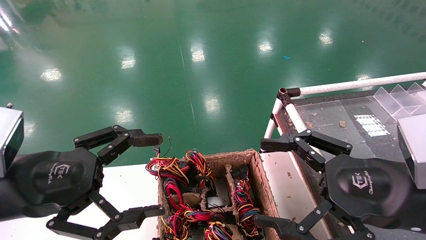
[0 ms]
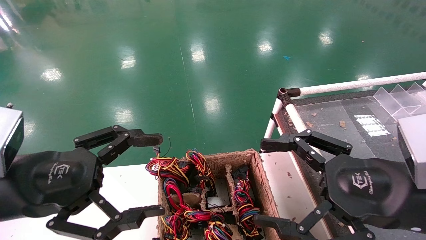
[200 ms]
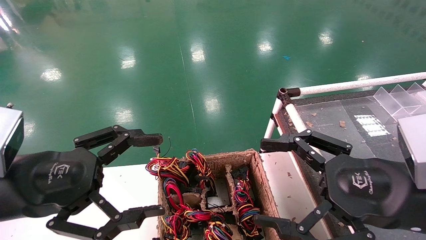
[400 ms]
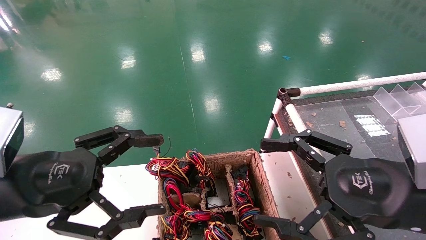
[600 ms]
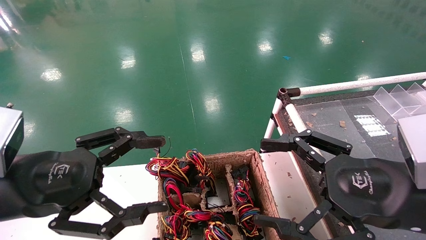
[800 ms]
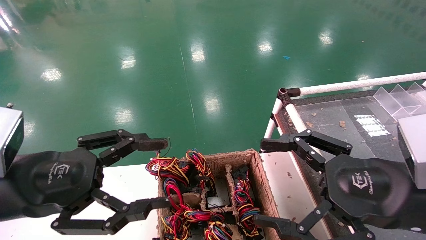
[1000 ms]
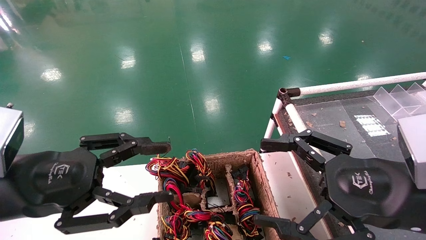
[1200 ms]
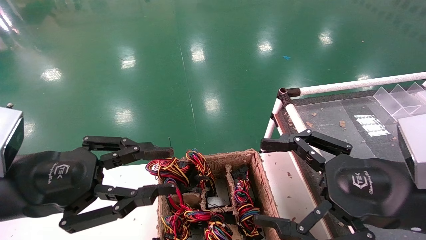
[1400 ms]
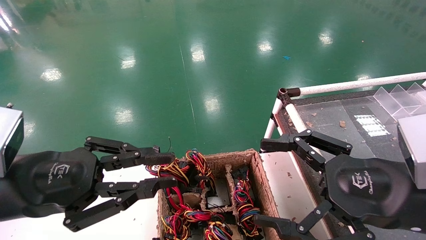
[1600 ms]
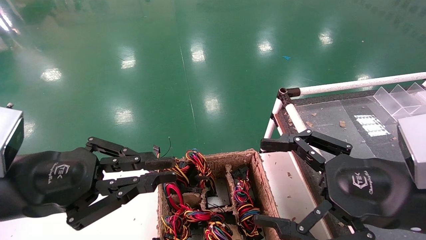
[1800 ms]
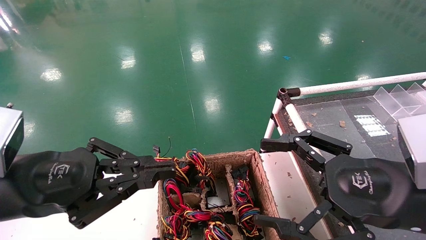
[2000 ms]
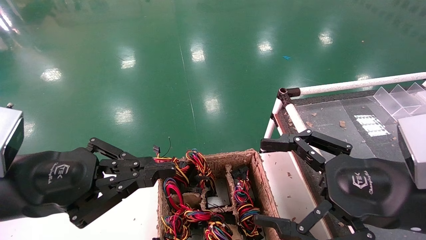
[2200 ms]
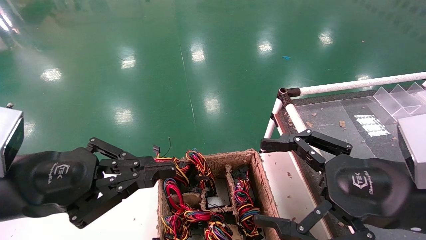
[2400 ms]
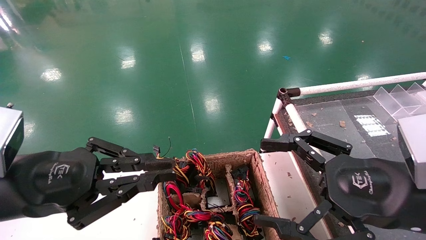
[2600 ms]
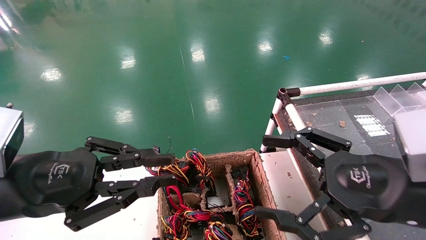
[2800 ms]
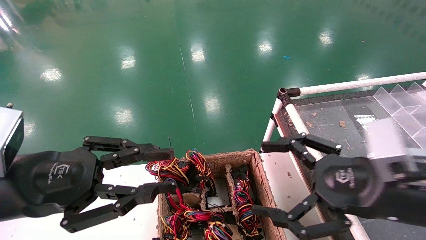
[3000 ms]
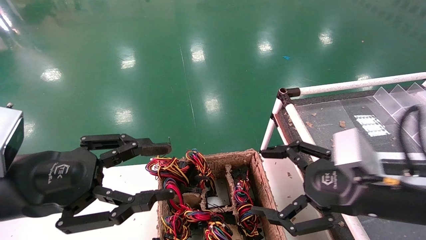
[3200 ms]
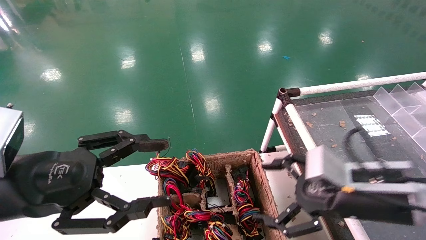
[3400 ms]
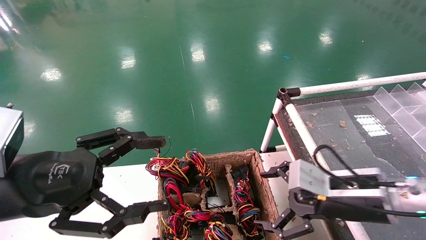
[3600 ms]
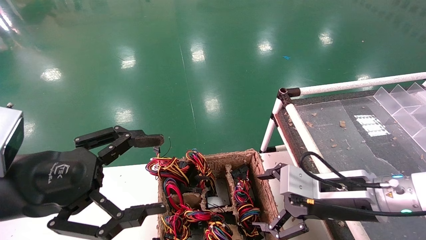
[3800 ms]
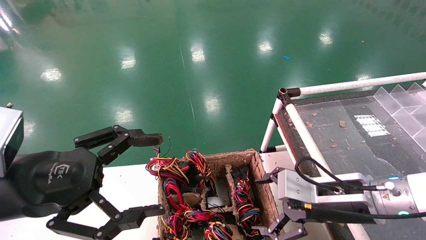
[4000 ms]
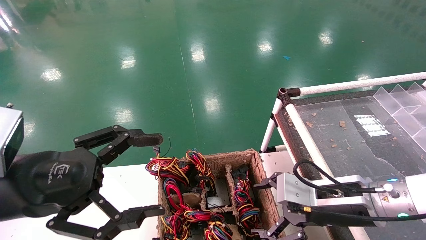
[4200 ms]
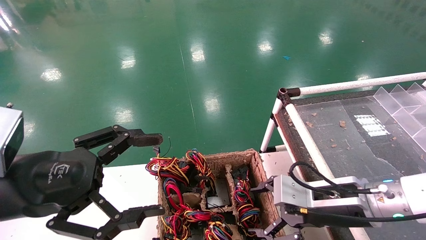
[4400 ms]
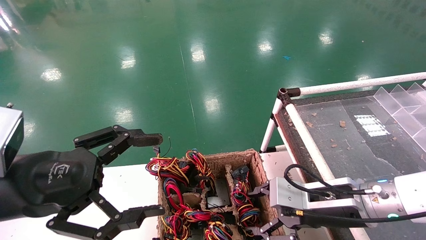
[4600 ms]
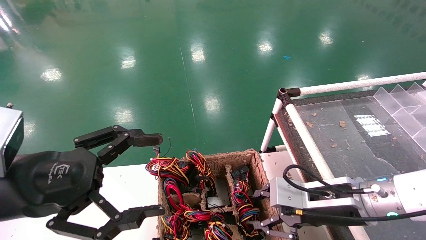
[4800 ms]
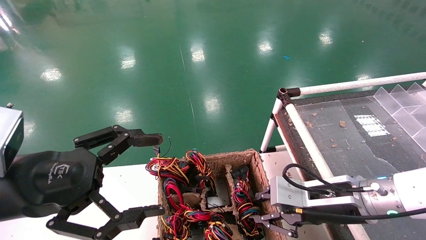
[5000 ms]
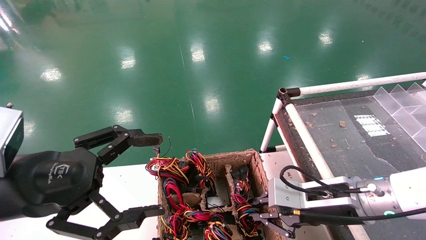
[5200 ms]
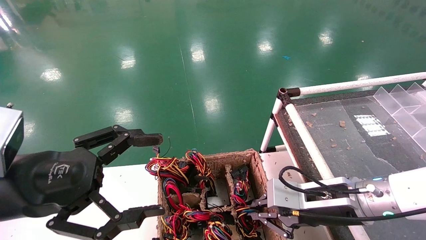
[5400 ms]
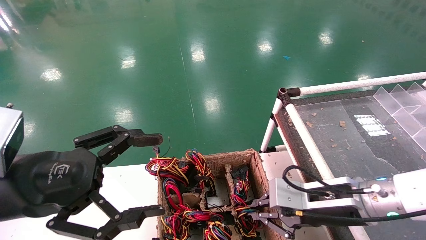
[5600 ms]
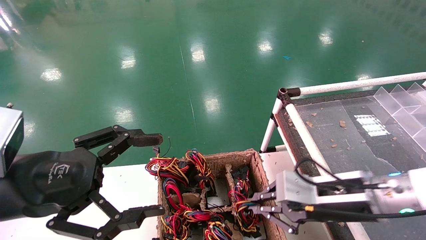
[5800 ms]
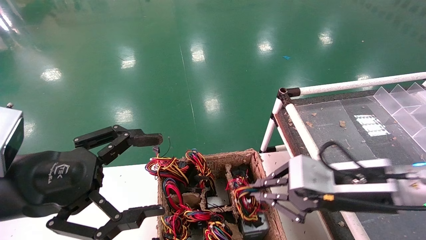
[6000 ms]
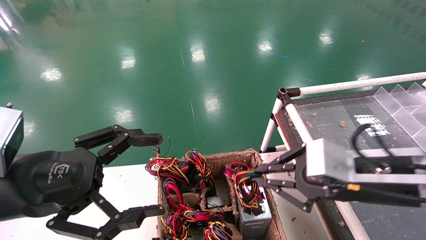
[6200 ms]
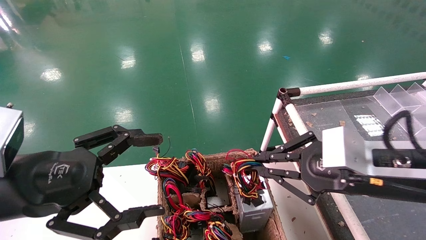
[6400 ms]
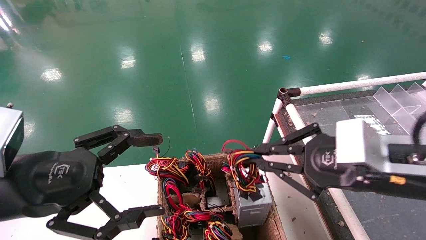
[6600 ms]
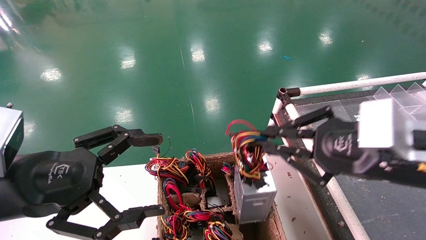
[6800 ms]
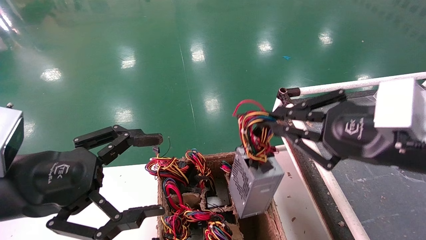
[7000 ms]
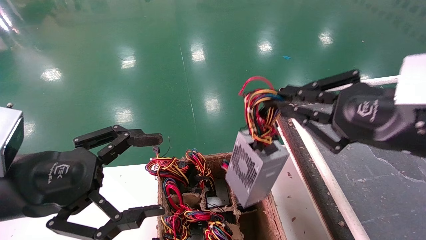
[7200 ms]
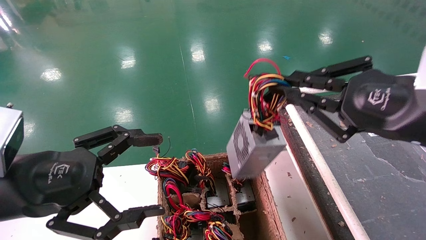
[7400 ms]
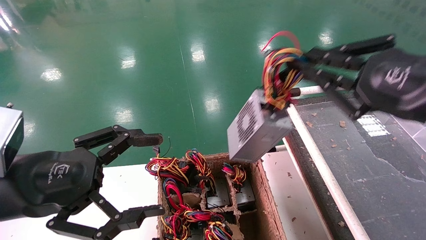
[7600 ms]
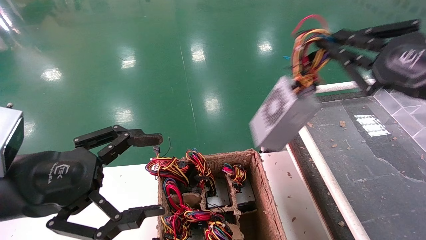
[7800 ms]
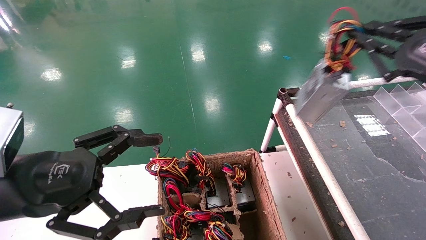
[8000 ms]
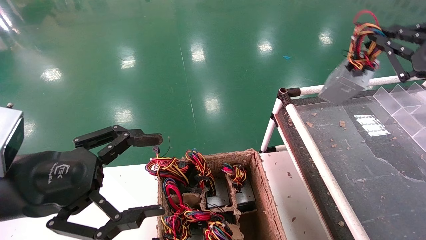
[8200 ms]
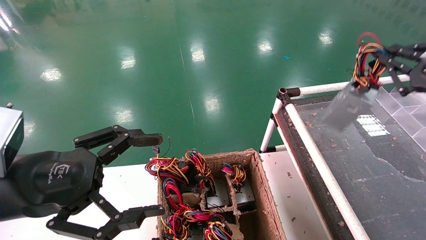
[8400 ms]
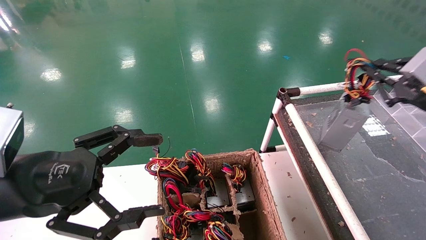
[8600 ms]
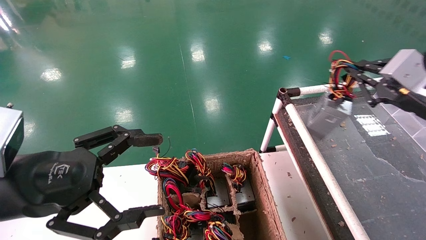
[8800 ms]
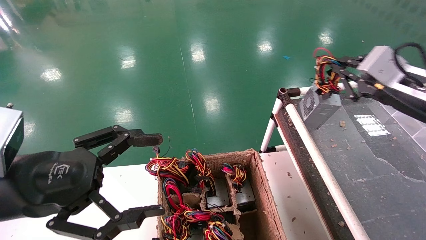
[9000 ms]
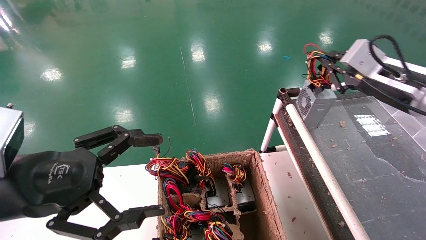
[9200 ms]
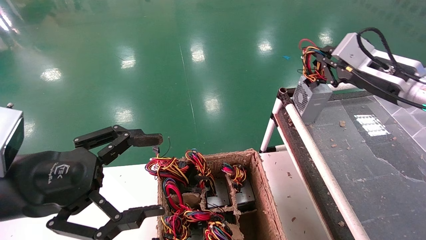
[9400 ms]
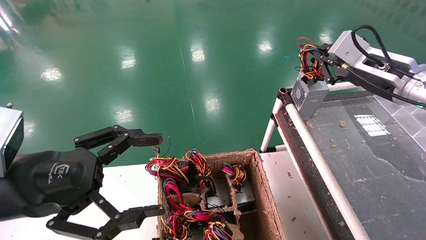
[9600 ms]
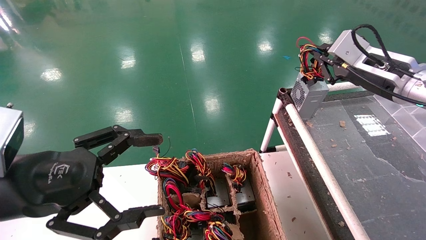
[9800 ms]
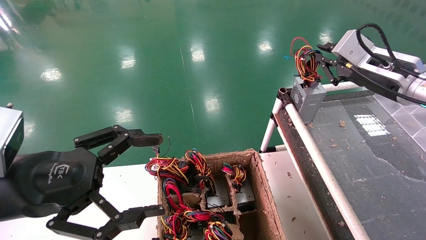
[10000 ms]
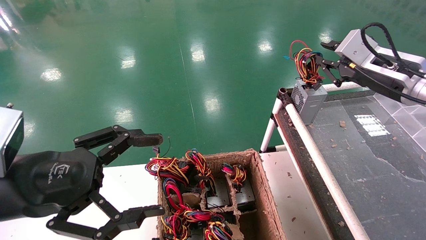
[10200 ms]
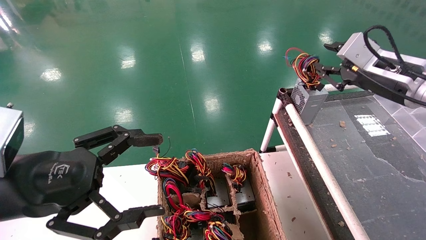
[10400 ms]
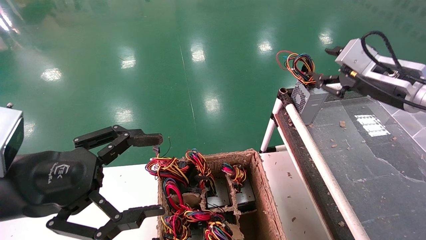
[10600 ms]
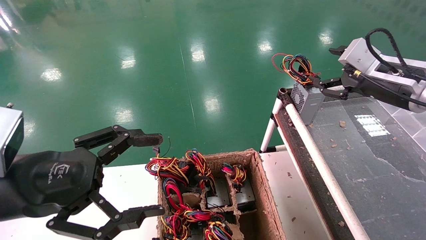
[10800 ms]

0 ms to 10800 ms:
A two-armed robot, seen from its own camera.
Step, 2800 ms to 5200 ms: Grab and lift the power supply from the large box.
Step, 5400 ms to 10800 ms: Place the power supply on the operating table.
0 ms to 1600 ms: The left gripper closes up.
1600 ms to 3000 ms: There are only small adjustments of the grippers.
3000 ms to 4600 ms: The right gripper shifts roughly 10 cm forward and downward, while the left gripper opens.
4600 ms to 6200 ms: The right gripper is displaced upward by some 5 cm, and closes its fingers.
6200 ms to 7800 ms: The right gripper is displaced upward and to the right by approximately 15 cm.
7800 ms to 9200 ms: The right gripper is displaced forward by some 10 cm.
9200 ms to 10800 ms: The right gripper opens up.

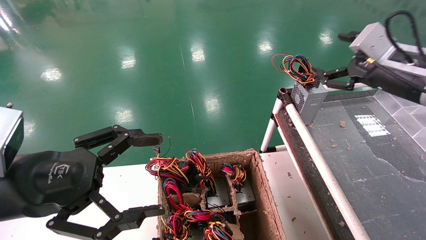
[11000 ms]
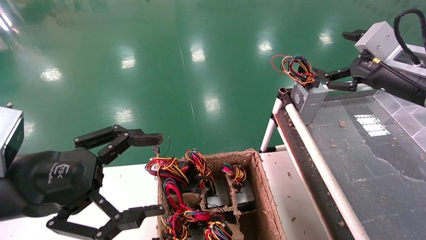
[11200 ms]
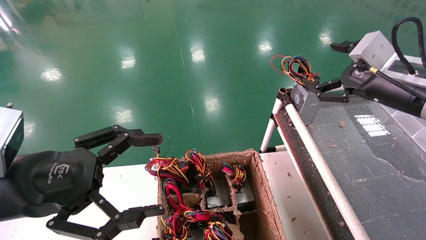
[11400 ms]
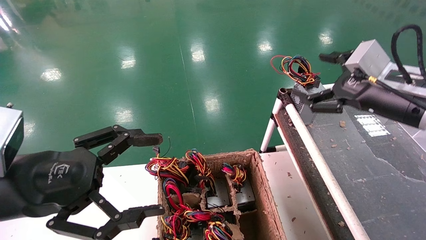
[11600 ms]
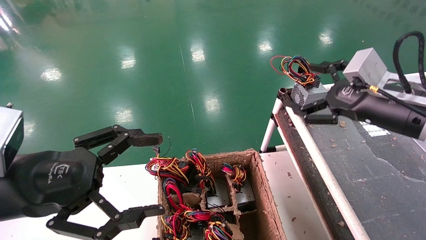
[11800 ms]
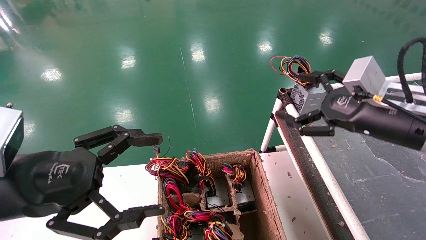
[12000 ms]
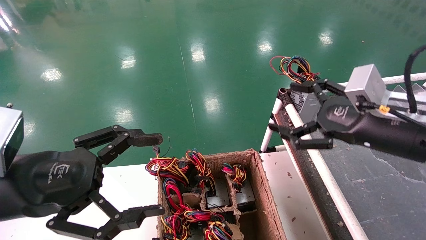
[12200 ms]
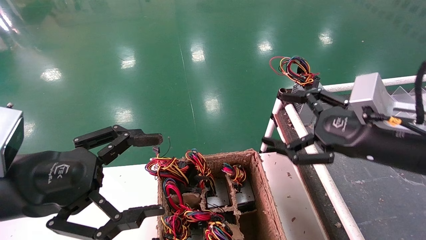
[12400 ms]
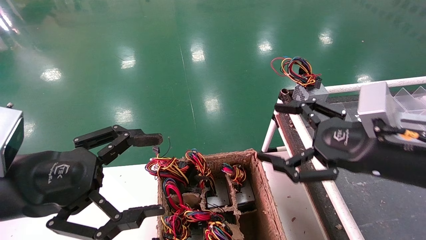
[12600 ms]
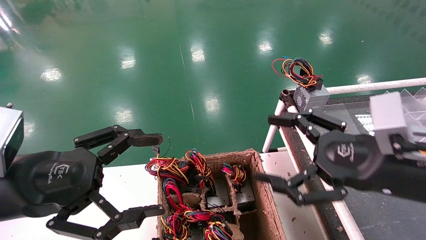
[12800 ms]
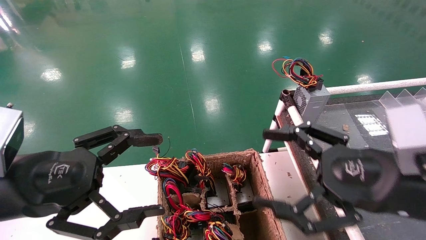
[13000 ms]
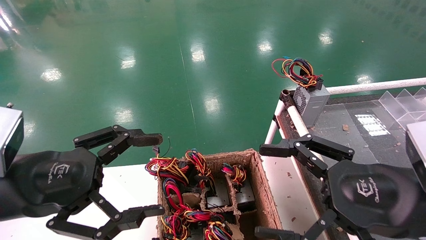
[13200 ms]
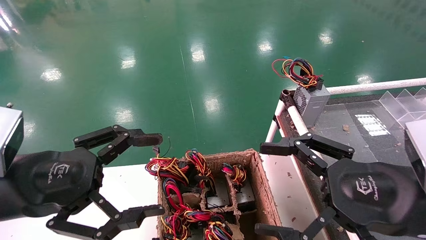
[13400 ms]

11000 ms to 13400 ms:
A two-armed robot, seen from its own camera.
11000 ms to 12200 ms: The right gripper heads backward, downward and to the left, covering approximately 10 cm.
12200 ms to 13400 ms: The right gripper goes about 10 cm backward.

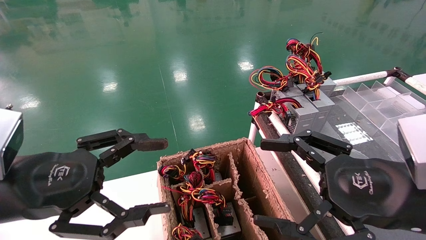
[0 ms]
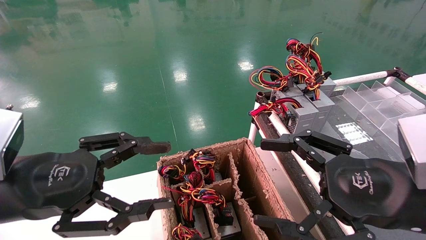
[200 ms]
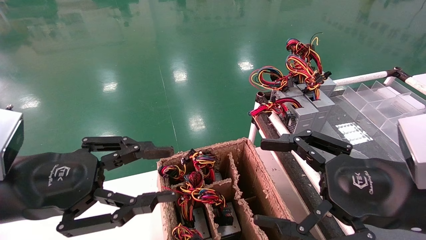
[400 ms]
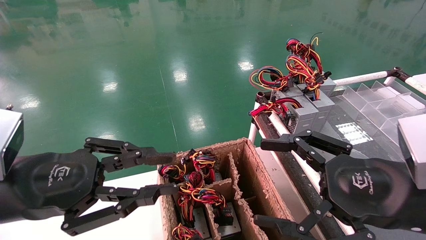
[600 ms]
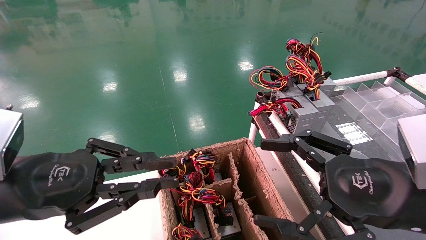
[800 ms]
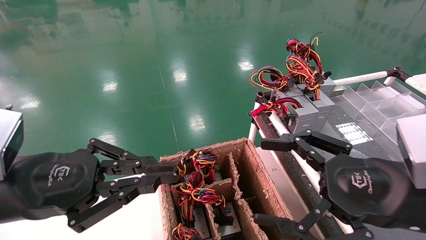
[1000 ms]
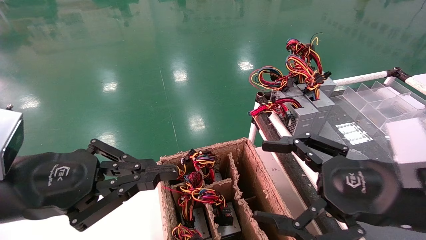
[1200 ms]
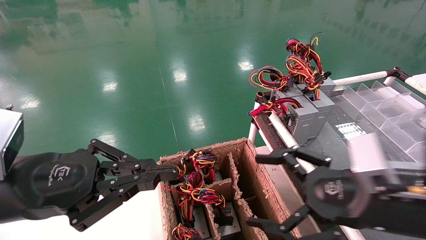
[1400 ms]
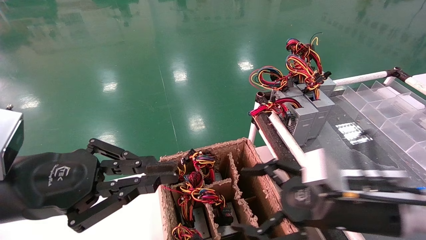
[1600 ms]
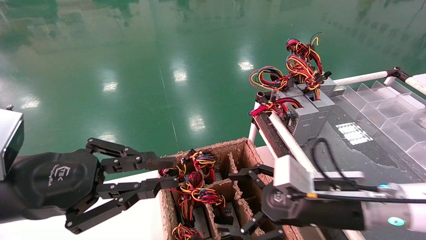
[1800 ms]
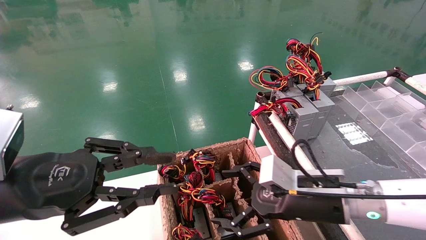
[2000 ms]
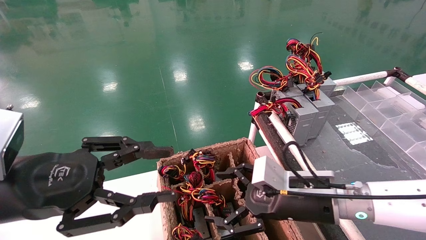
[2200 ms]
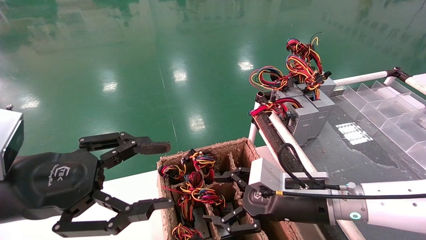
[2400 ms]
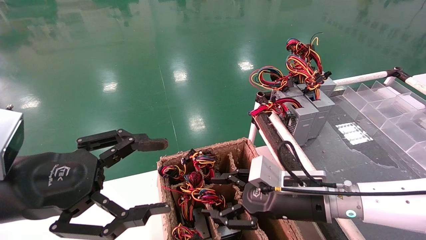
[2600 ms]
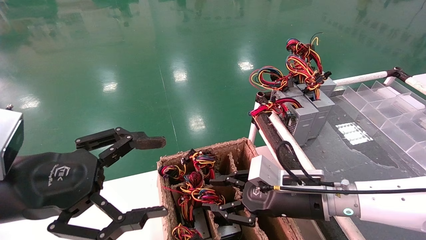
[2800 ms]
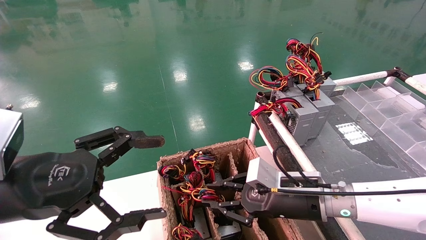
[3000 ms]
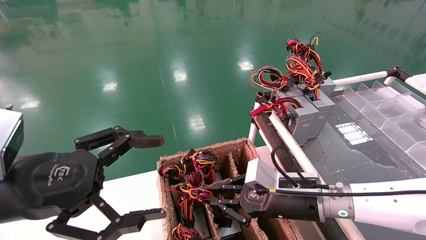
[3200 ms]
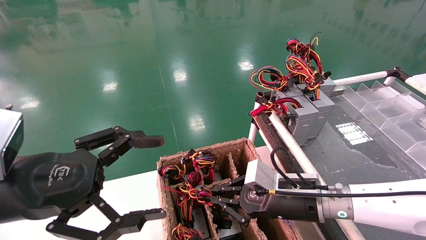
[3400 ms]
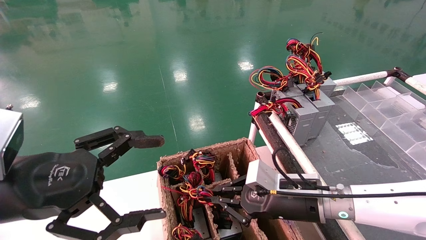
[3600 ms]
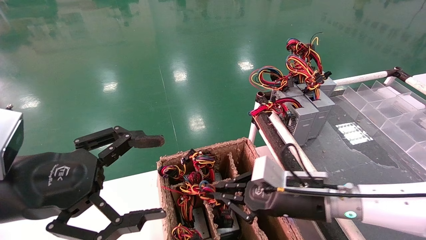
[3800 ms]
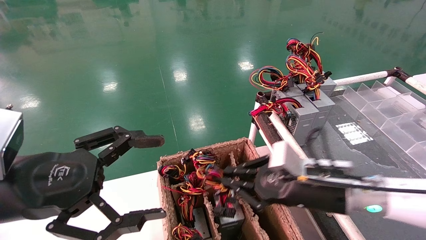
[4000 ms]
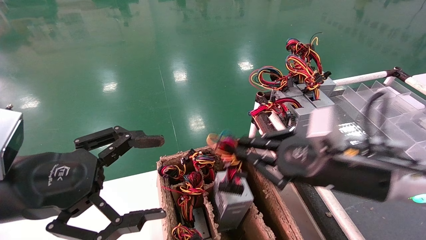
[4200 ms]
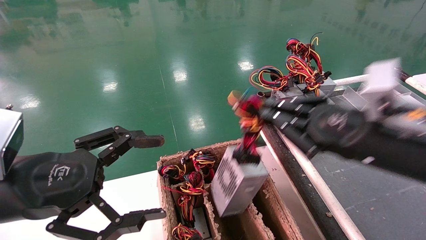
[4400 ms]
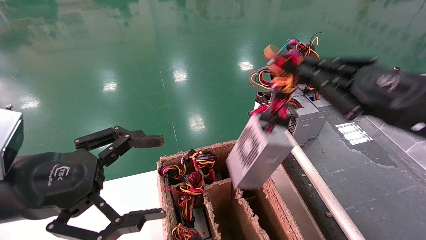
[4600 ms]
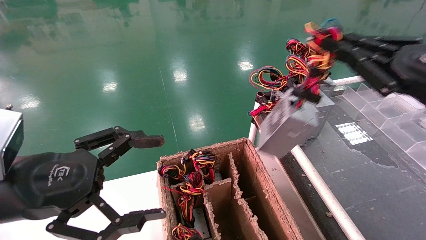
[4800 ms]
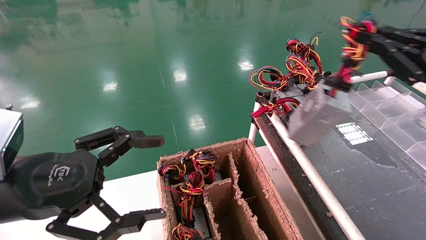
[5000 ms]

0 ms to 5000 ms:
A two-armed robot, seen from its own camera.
Step, 1200 ms to 3400 ms: Grab and lift the power supply from the large box.
0 ms to 1600 ms: The left gripper closes up. The right gripper travels forward and downward by about 10 cm.
1600 ms to 3400 ms: The right gripper is displaced forward, downward and to the left by about 10 cm, and closes; the left gripper opens its fingers.
3400 ms to 5000 ms: The right gripper heads to the right and upward, covering about 30 cm.
